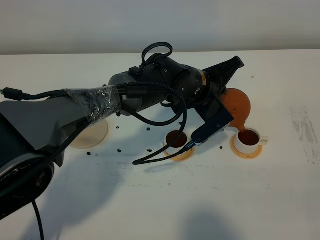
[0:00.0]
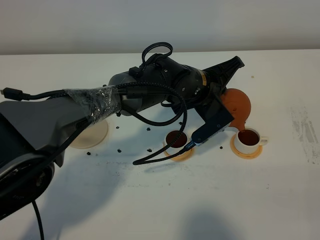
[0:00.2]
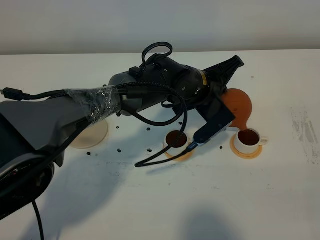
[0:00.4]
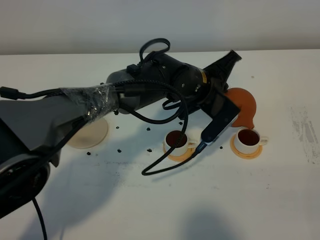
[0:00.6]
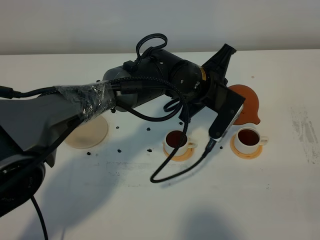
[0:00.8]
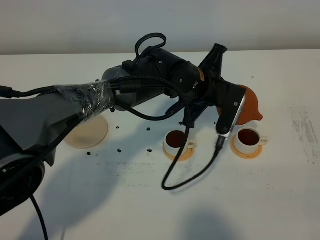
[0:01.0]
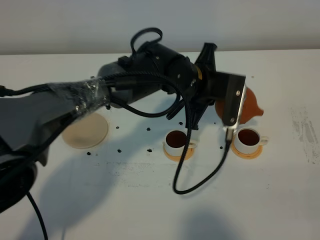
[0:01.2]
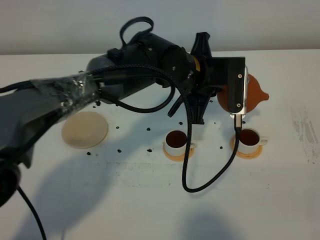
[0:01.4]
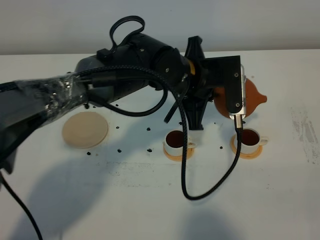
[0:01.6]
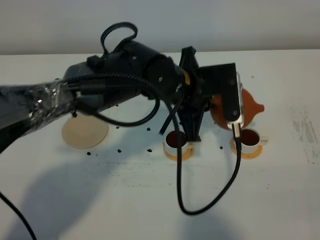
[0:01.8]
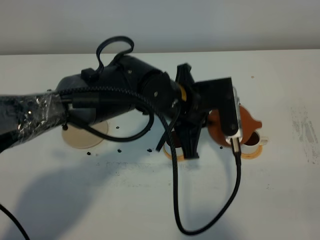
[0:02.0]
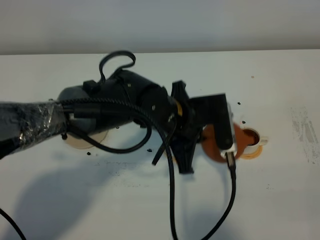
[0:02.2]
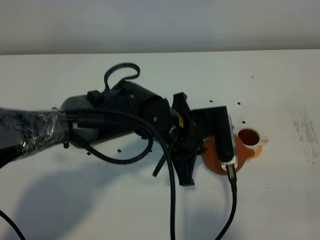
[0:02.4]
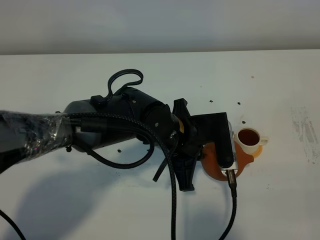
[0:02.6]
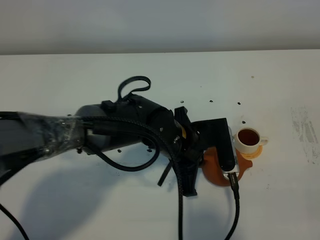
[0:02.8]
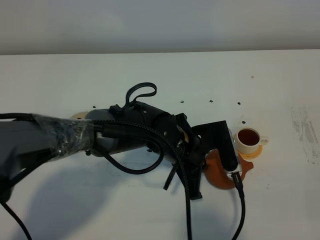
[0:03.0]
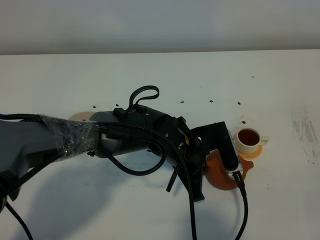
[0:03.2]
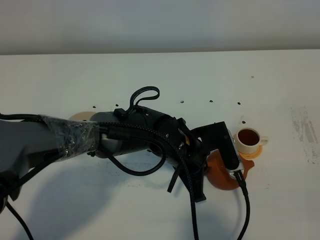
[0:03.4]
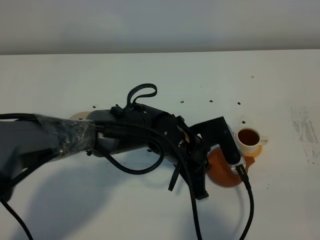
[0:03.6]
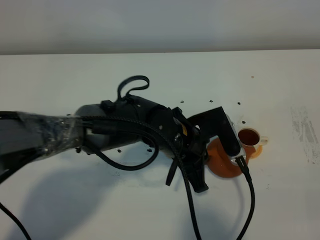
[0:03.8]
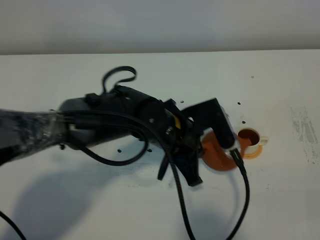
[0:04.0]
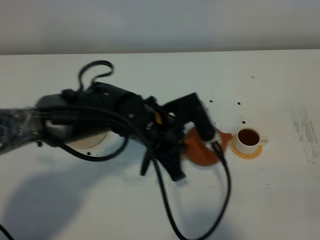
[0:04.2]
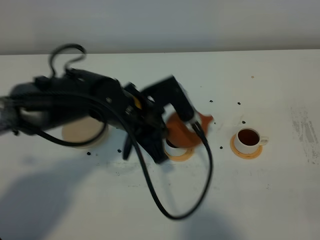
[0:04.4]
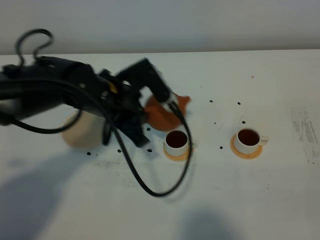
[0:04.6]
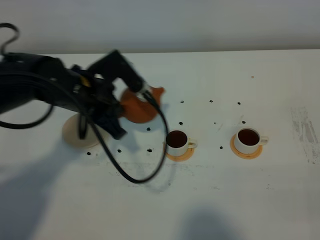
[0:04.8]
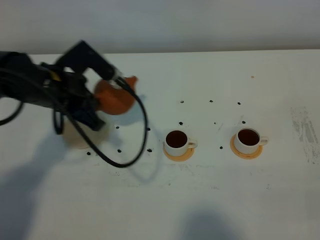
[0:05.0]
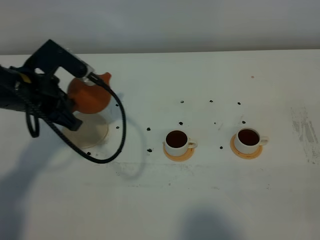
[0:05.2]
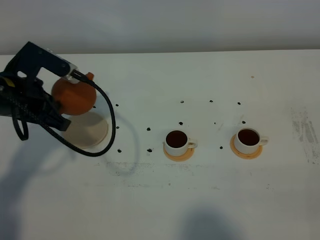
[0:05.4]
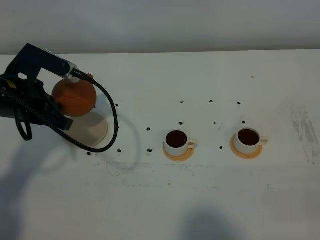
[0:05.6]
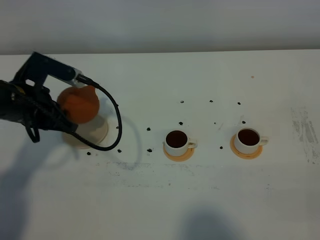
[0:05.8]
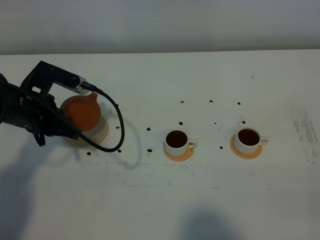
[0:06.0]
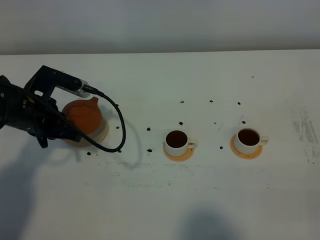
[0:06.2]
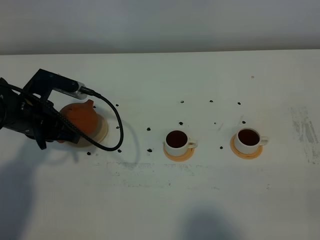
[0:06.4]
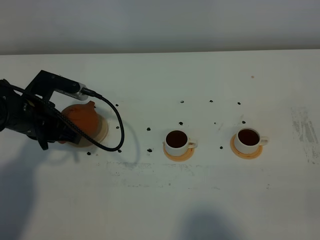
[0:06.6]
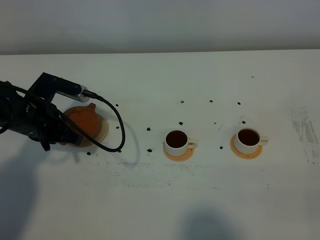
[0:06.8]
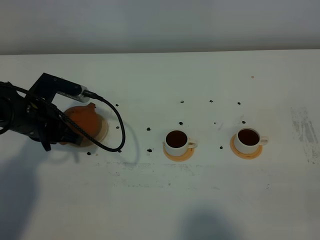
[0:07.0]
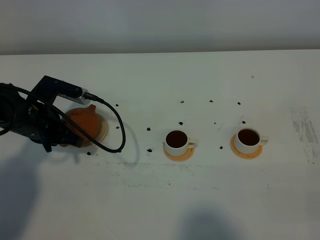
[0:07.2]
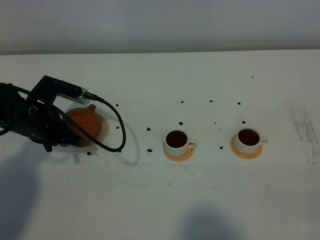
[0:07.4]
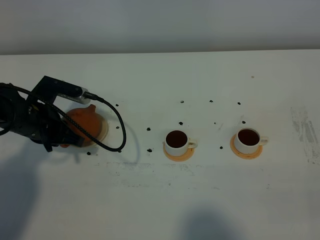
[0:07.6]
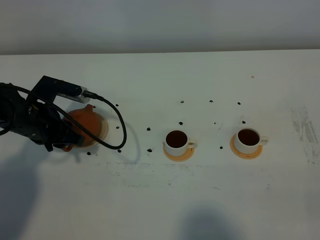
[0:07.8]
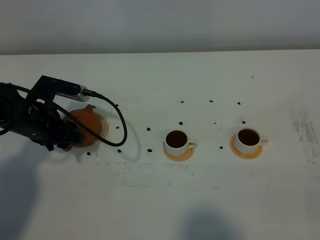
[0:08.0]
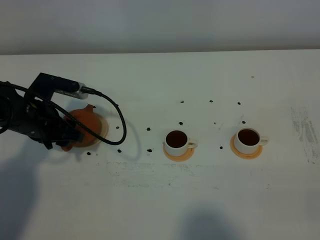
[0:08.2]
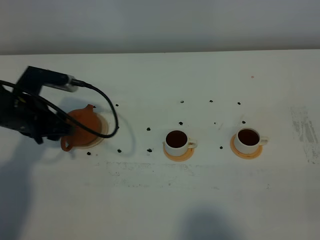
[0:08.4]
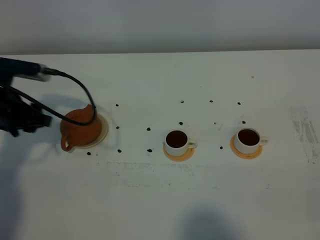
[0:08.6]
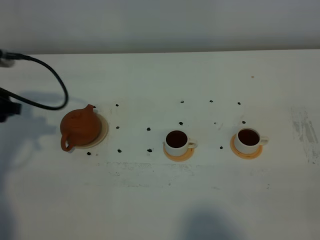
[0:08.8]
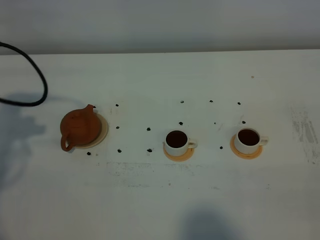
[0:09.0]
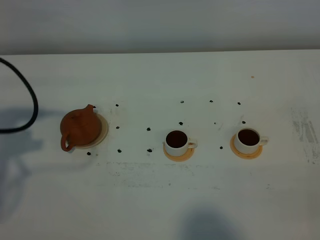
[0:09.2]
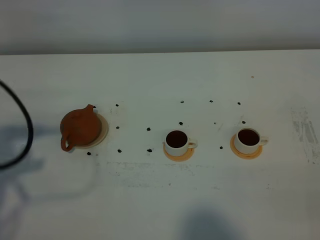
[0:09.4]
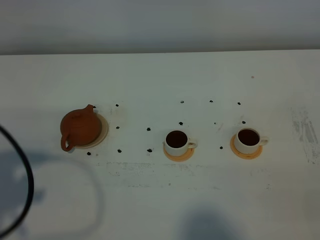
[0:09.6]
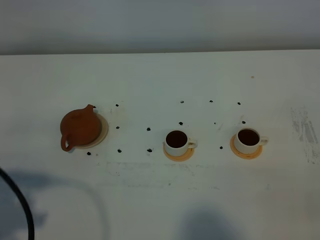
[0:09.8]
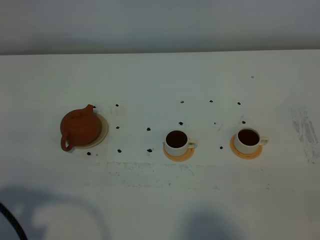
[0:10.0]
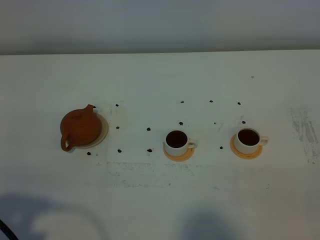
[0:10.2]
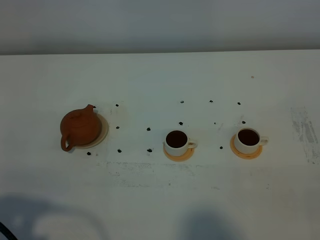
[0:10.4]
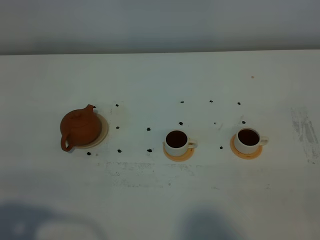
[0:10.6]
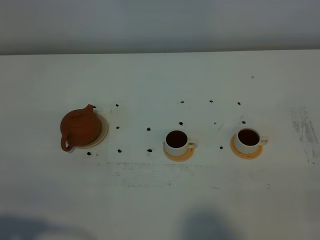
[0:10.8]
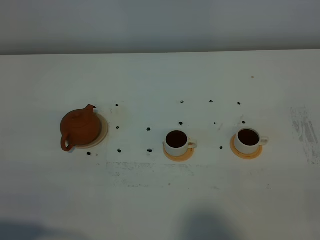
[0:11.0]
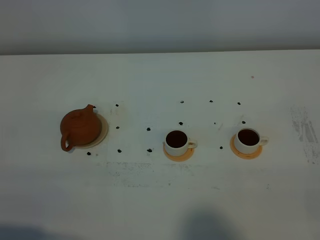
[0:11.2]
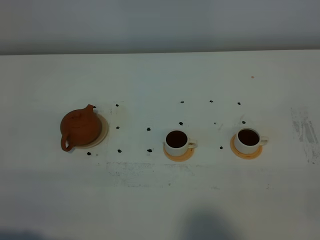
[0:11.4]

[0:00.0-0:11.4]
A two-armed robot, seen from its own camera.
Task of the whole recording: grasp the brown teapot and pour the tea into the two white teacups one by one, put the brown teapot back in its original place.
0:00.0 to 0:01.4: The left gripper moves about 5 cm.
0:01.4 to 0:02.8: The left gripper goes approximately 10 cm backward and downward.
0:02.8 to 0:04.2: The left gripper moves some 5 cm.
0:04.2 to 0:05.6: The left gripper is displaced to the left by about 20 cm.
0:05.6 to 0:07.2: The left gripper goes some 10 cm downward.
0:07.2 to 0:08.6: The left gripper travels to the left and upward by approximately 10 cm, and opens its fingers.
0:08.6 to 0:10.0: The left gripper is displaced backward and upward by about 30 cm.
0:10.0 to 0:11.4: The left gripper is displaced backward by some 5 cm.

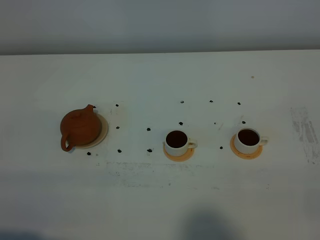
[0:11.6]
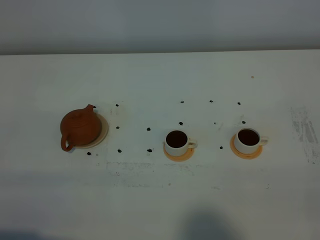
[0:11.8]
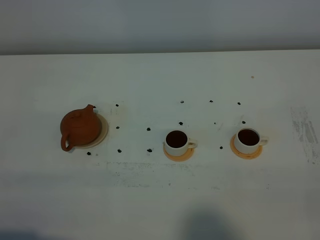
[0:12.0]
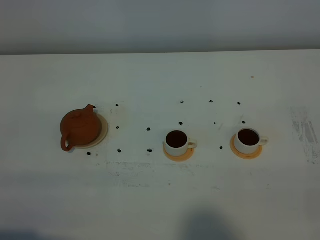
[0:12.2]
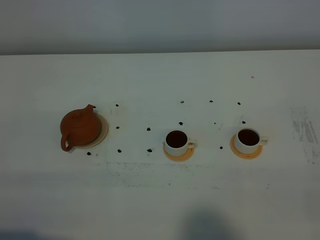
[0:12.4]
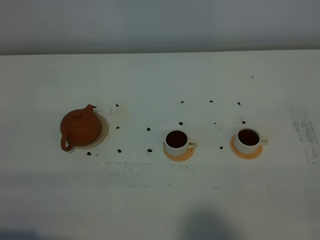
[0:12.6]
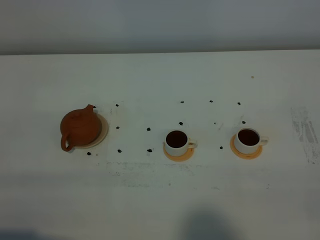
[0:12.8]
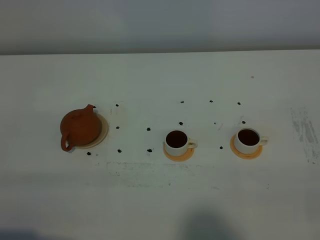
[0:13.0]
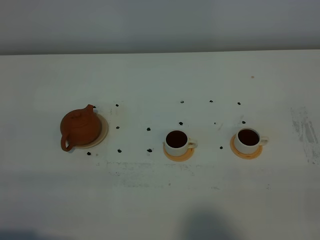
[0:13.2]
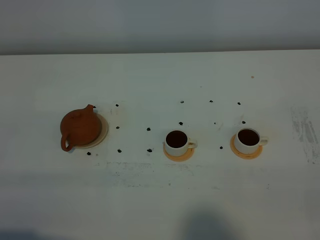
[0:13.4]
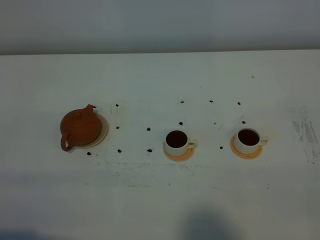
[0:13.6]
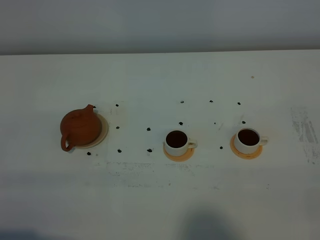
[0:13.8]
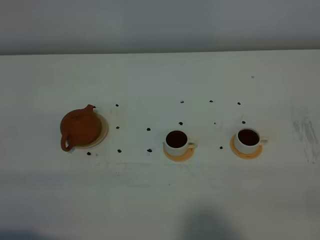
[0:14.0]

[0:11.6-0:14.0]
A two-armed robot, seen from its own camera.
Task of the whole recording: grasp the brown teapot and pour the tea into the two white teacups one by one, put the brown teapot back in its original place.
0:11.6 to 0:12.8: Both grippers stay put.

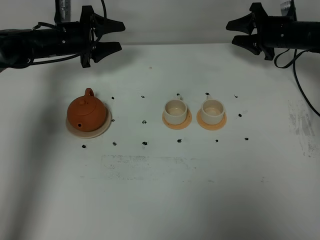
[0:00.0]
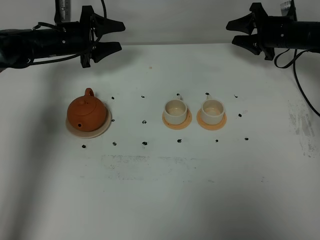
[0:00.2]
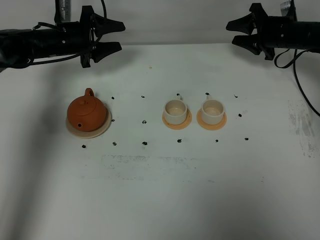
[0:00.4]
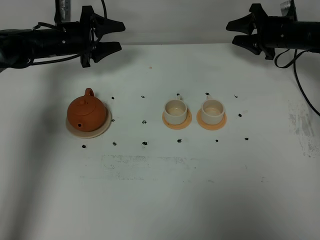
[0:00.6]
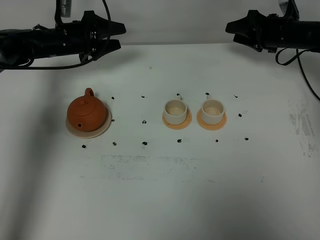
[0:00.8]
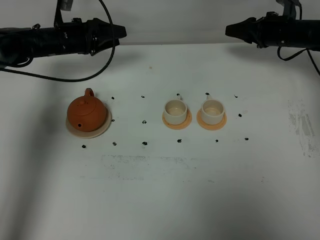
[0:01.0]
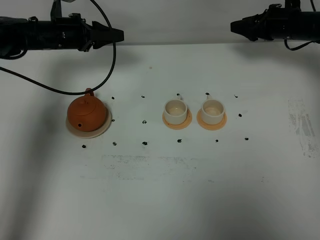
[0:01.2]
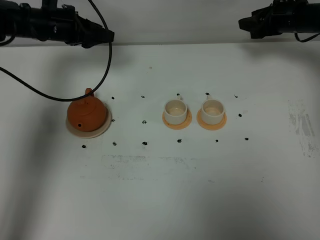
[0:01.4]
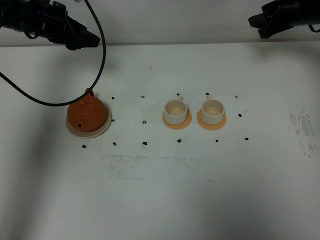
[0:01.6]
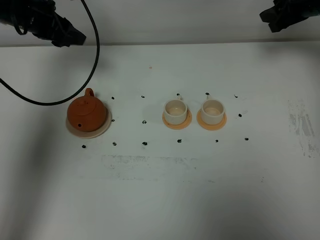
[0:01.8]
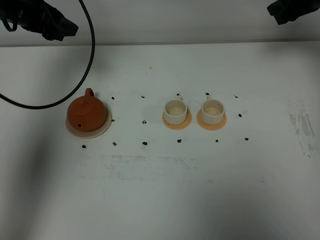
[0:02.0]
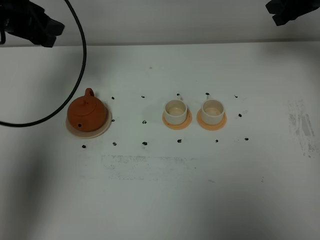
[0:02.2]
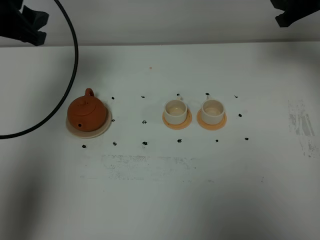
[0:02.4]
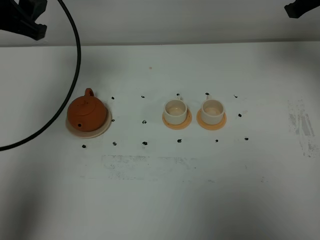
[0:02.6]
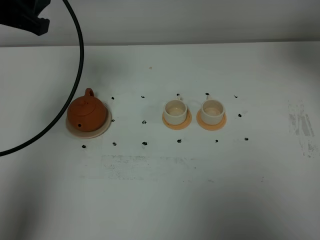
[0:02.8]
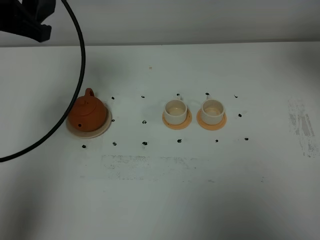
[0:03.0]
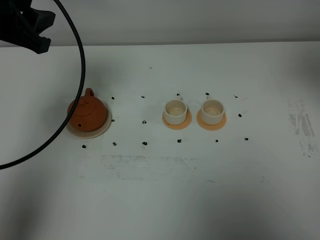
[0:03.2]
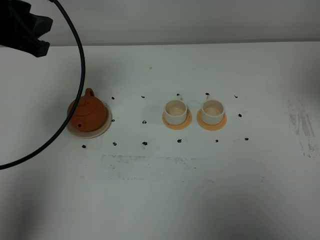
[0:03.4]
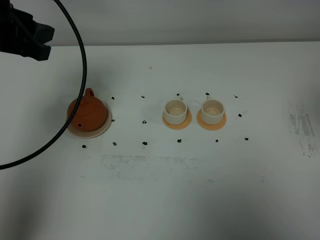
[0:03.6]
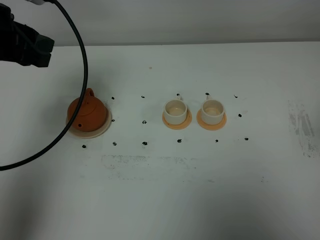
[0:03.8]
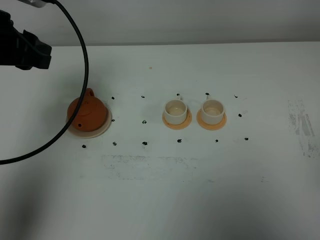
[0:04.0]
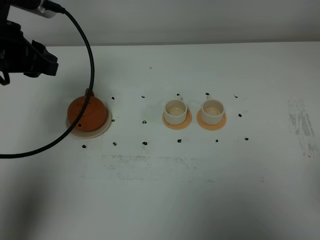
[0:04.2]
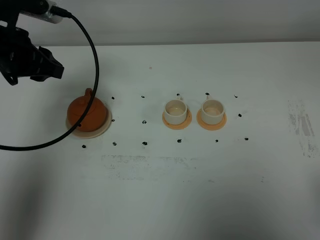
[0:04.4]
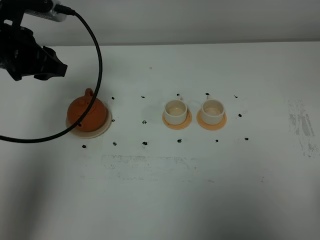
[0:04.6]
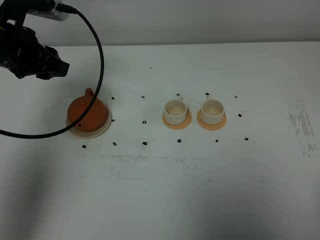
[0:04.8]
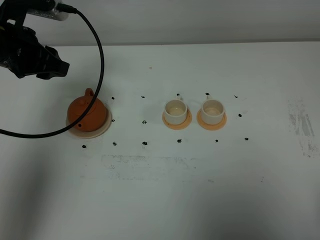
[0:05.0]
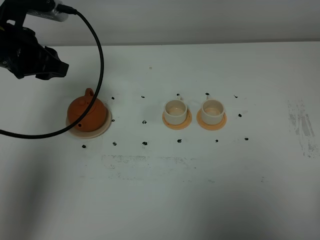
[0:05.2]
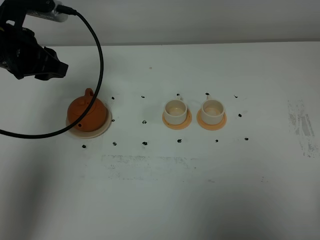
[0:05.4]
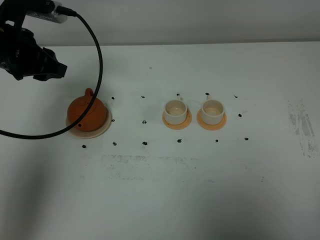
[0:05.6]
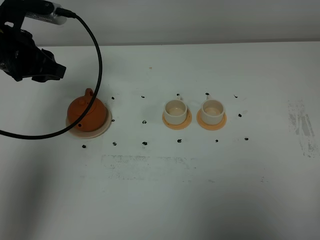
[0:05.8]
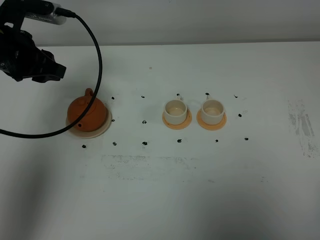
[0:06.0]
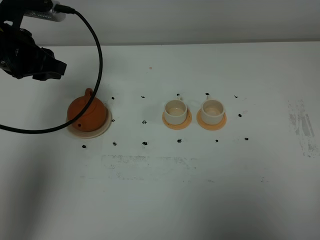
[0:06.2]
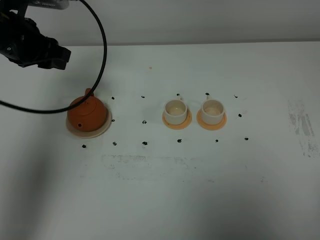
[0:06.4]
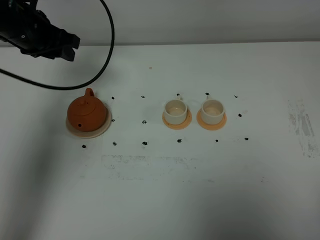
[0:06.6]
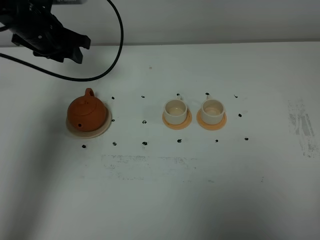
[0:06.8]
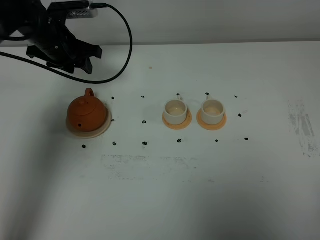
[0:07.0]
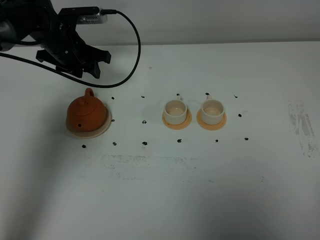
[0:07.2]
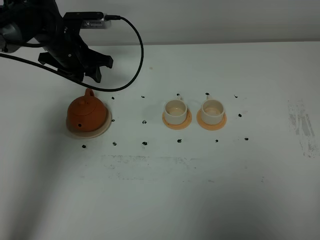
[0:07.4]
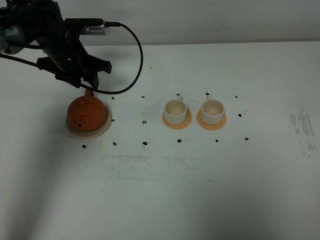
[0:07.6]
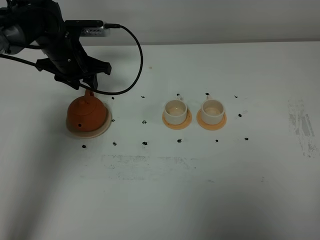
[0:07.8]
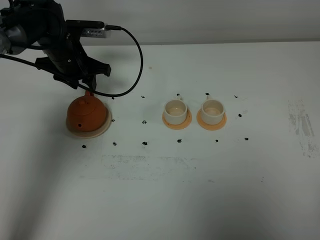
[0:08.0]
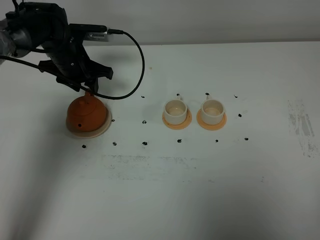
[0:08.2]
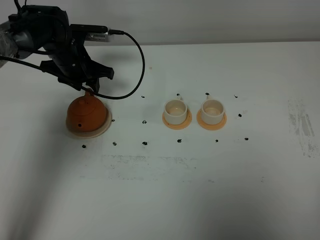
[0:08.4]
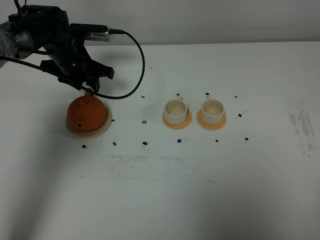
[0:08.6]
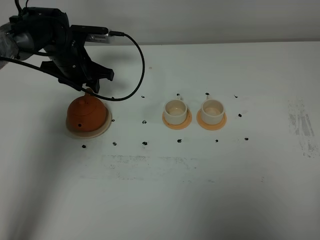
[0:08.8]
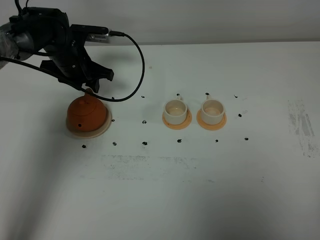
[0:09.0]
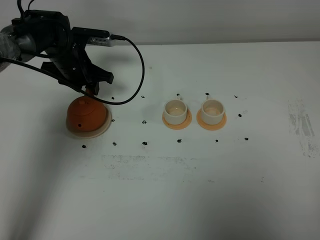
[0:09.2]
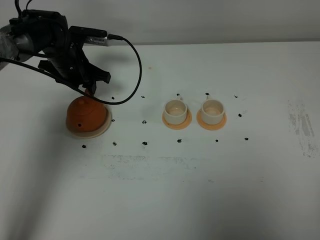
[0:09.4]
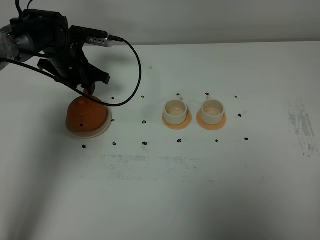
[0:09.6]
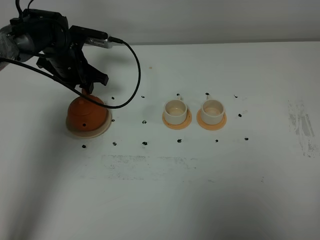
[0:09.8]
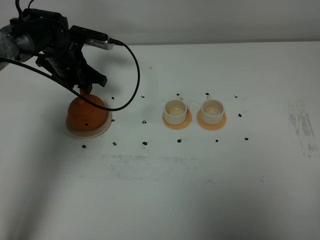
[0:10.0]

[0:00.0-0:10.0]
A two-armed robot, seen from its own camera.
Task of the whole recording: grasp the brown teapot and pour the tea into the two white teacups one by one, put the brown teapot back in its original place.
0:00.0 to 0:01.4: The left gripper moves upward, roughly 5 cm.
0:01.4 to 0:02.8: The right gripper is displaced upward and backward by approximately 35 cm. The left gripper moves backward and upward, roughly 25 cm.
0:02.8 to 0:04.2: The right gripper is displaced backward by roughly 25 cm, while the left gripper travels downward by roughly 5 cm.
0:05.8 to 0:07.2: The left gripper shifts some 15 cm forward, downward and to the right.
0:07.2 to 0:10.0: There are only small adjustments of the grippers.
